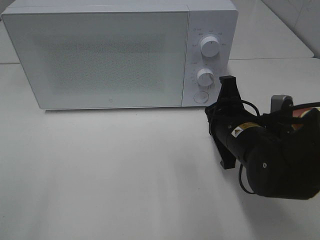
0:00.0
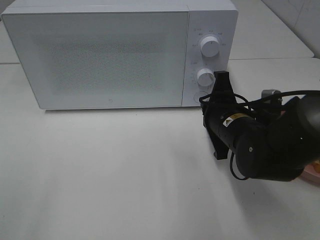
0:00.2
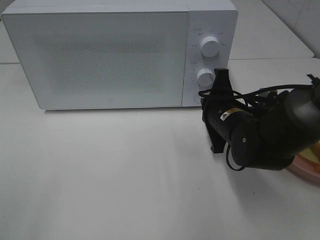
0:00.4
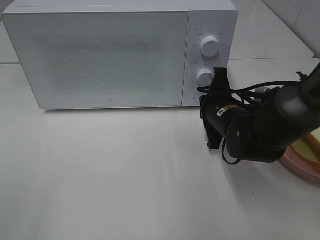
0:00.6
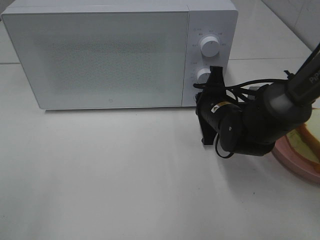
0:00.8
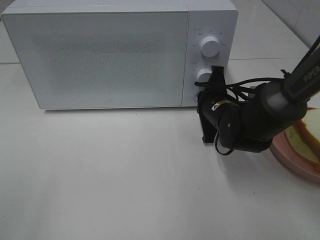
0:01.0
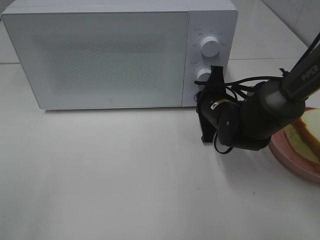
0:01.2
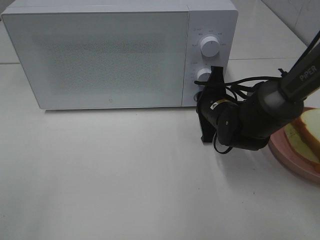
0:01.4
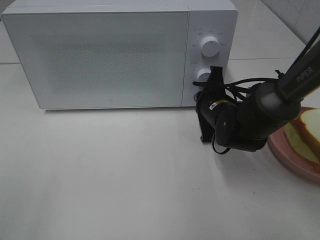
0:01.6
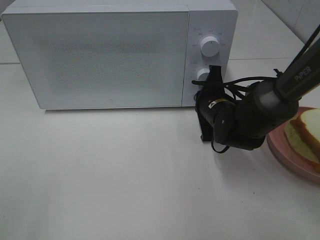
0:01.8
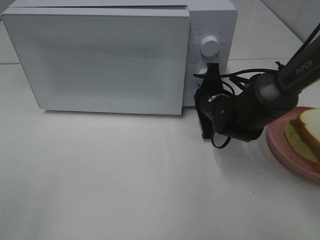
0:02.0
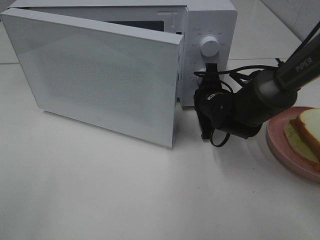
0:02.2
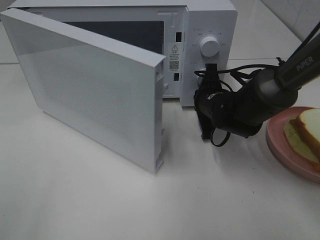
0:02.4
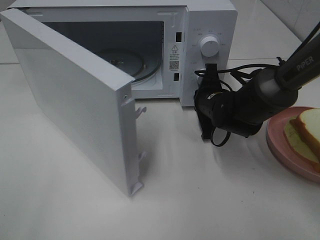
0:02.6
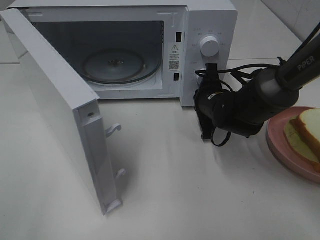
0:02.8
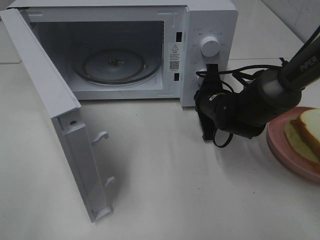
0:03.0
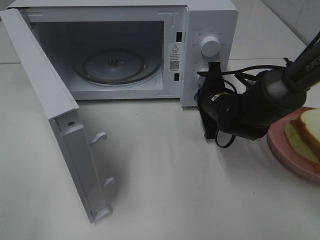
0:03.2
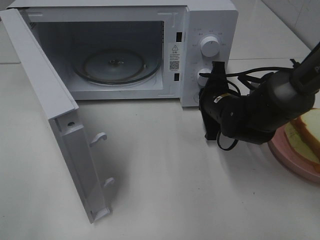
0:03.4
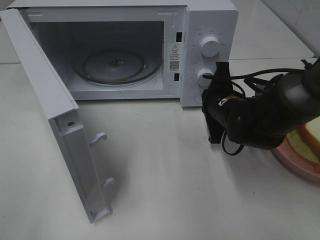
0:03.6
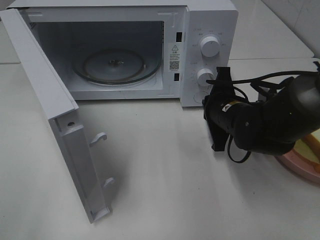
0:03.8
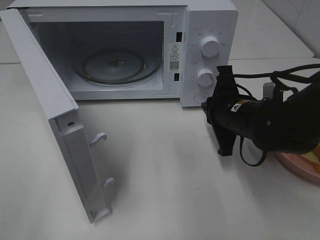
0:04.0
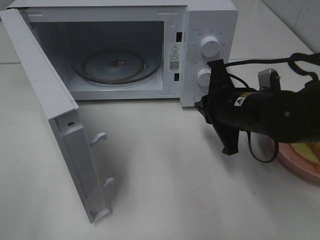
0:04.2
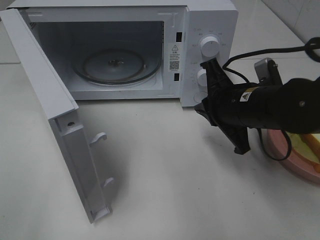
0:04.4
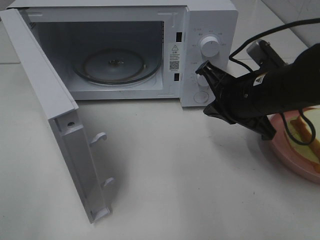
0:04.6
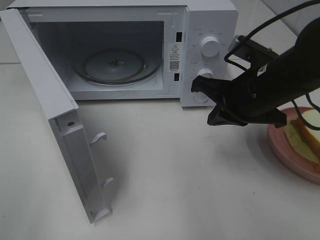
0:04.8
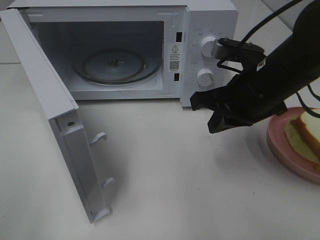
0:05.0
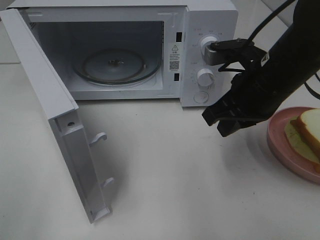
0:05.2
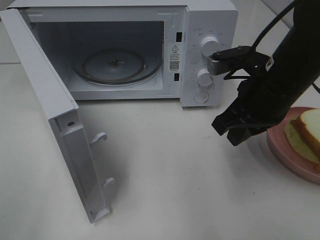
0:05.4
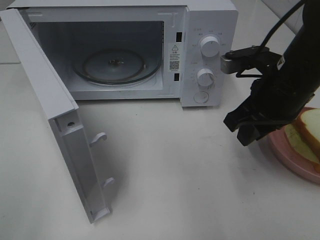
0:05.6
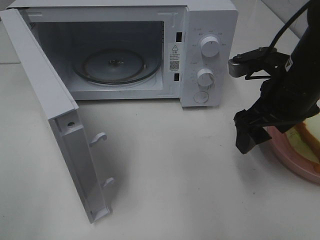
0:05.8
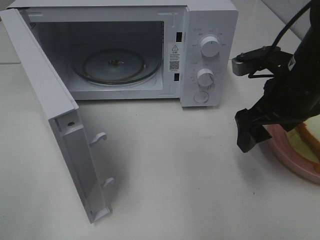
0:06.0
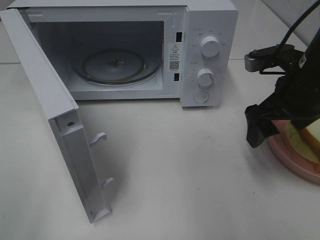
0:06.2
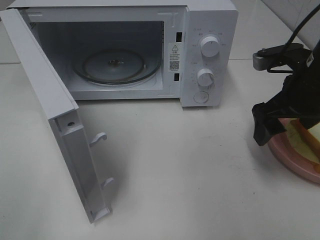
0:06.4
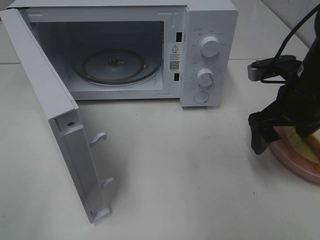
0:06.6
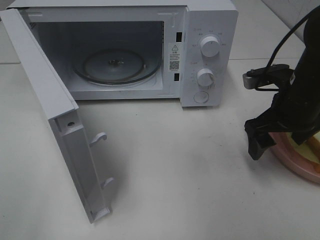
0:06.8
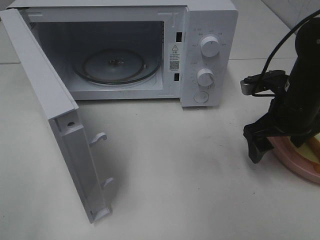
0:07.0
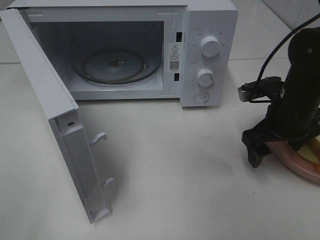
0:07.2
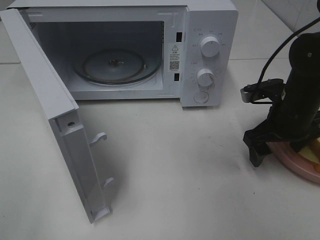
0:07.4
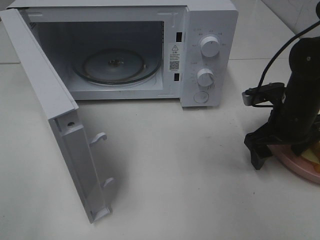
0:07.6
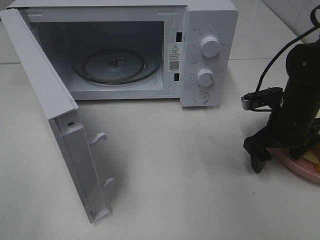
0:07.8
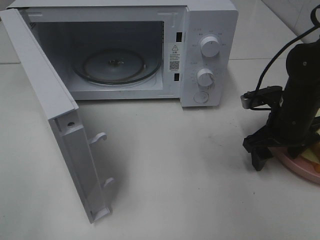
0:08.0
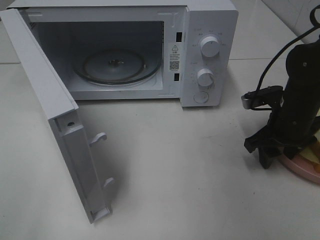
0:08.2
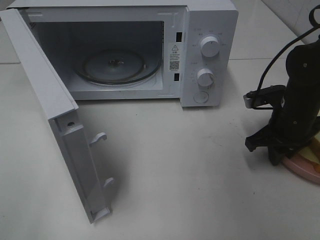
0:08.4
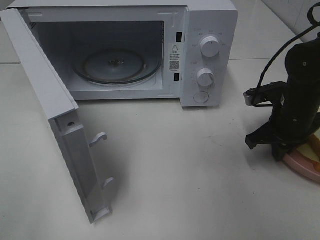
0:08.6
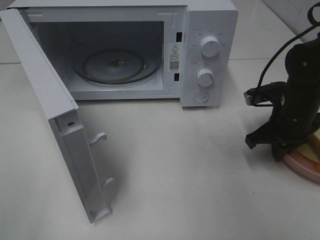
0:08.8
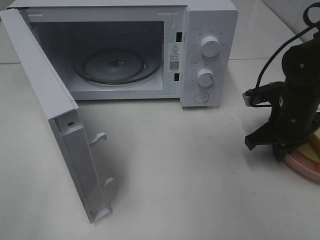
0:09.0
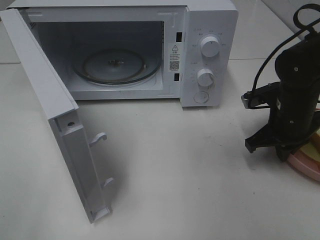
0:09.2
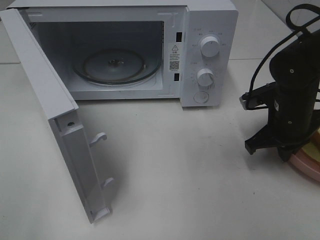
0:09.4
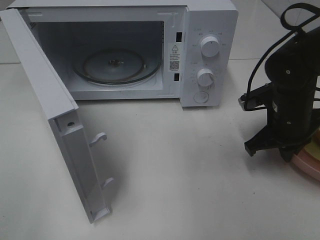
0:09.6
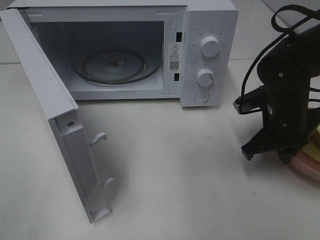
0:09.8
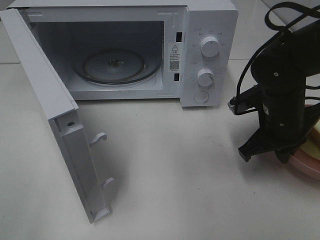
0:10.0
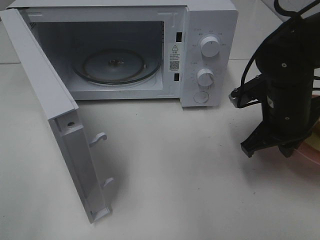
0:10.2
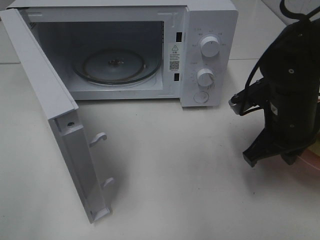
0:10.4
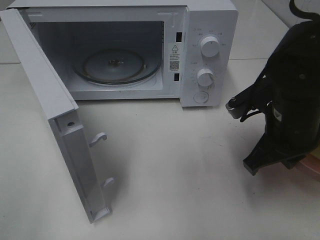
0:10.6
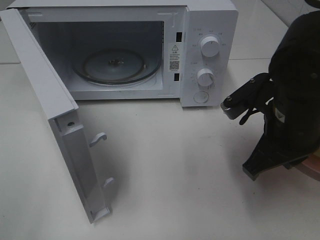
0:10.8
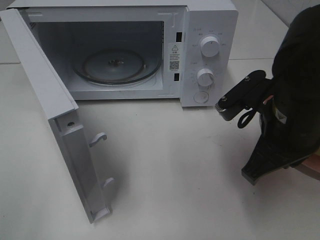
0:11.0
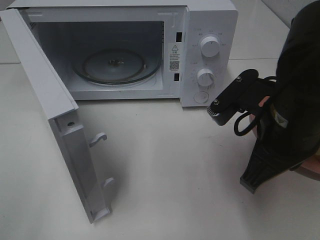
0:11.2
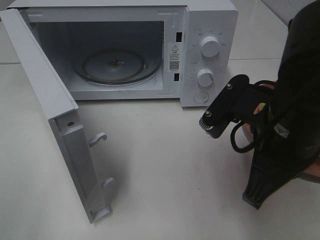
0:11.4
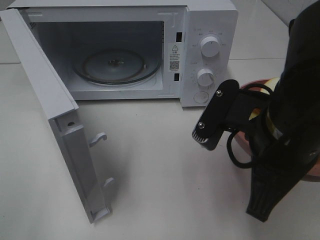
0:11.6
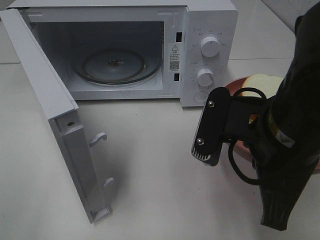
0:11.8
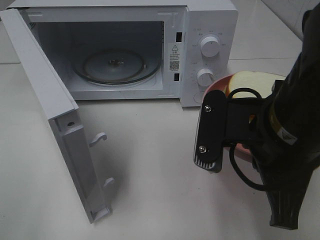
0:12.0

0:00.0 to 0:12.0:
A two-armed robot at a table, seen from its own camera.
Task of the whole recording: Heat Sandwich.
Step, 0:00.0 to 0:03.4: Right hand: press the switch.
Step, 0:03.6 to 0:08.8: Right hand: grab the plate with the sandwich.
0:00.0 to 0:01.6: The right gripper travels forward by some 10 cm.
0:03.0 to 0:04.4: The right gripper travels backward and upward by approximately 10 cm.
0:04.4 to 0:06.0: The right gripper is displaced to the right by roughly 5 cm, and opens its fingers.
0:06.0 to 0:07.6: The right gripper goes about 10 cm downward.
0:07.6 to 0:09.0: The right gripper closes up.
0:09.0 to 0:10.4: The right gripper moves backward and to the left, approximately 10 cm.
0:10.4 to 0:12.0: The right gripper travels backward, upward and to the left by some 15 cm.

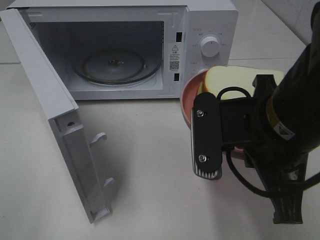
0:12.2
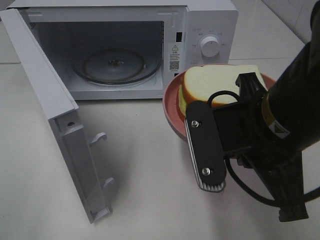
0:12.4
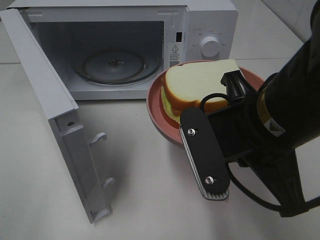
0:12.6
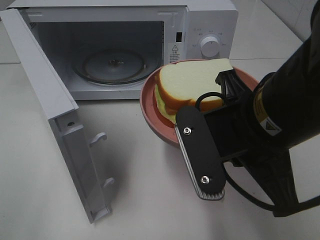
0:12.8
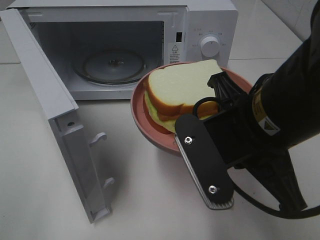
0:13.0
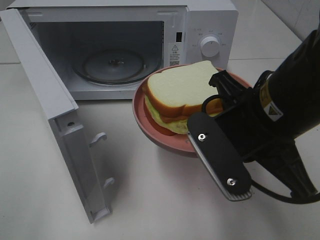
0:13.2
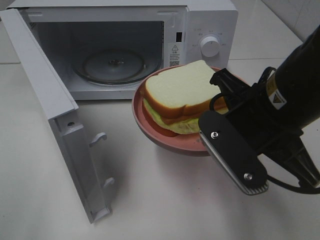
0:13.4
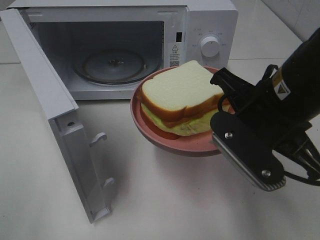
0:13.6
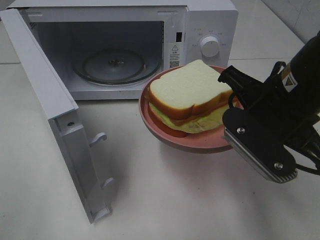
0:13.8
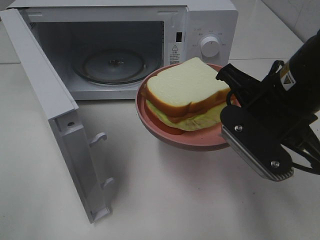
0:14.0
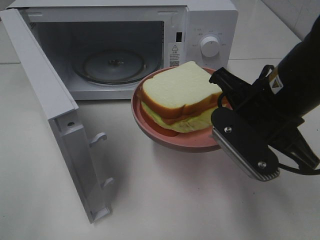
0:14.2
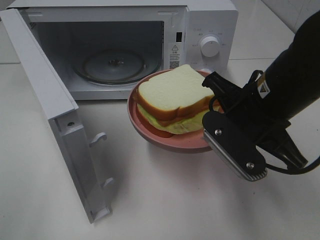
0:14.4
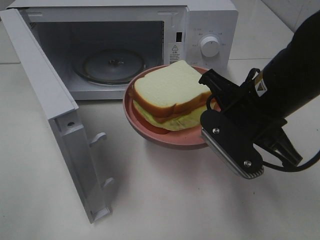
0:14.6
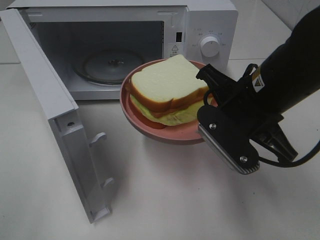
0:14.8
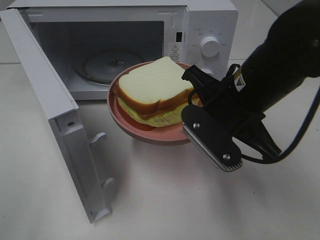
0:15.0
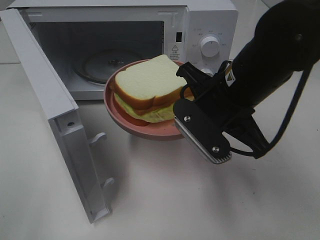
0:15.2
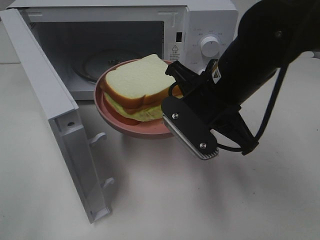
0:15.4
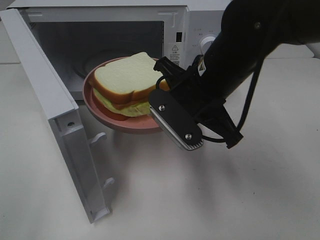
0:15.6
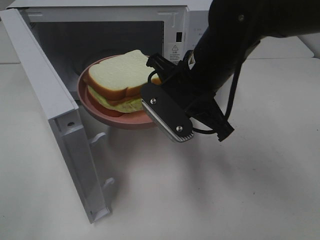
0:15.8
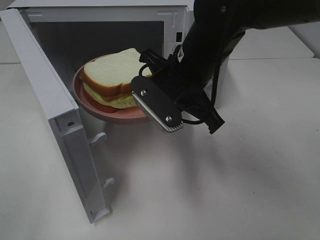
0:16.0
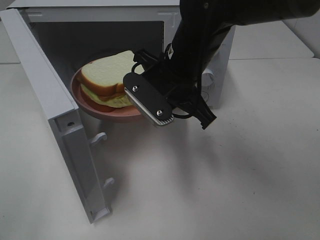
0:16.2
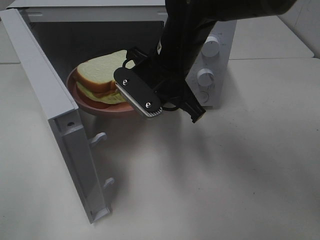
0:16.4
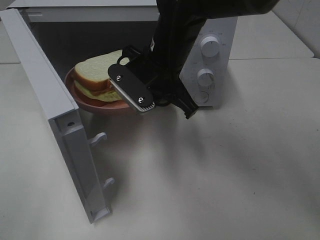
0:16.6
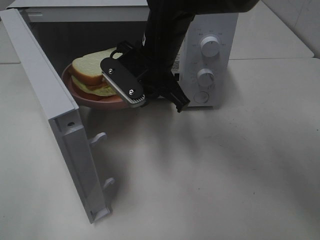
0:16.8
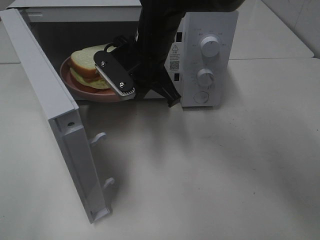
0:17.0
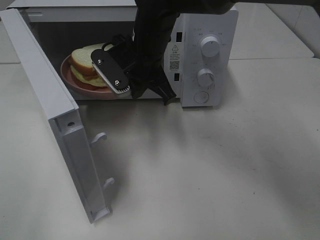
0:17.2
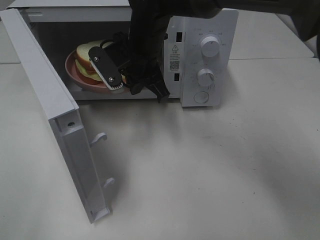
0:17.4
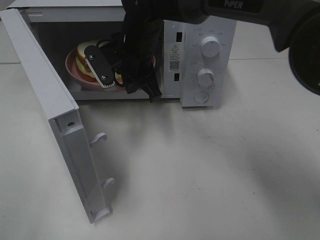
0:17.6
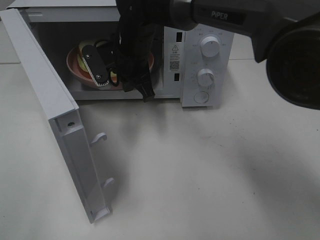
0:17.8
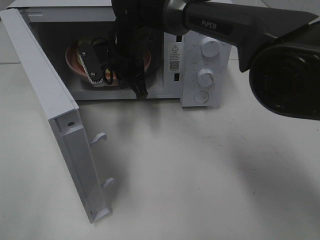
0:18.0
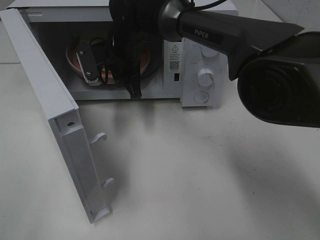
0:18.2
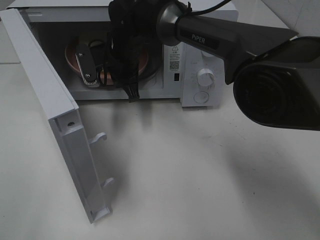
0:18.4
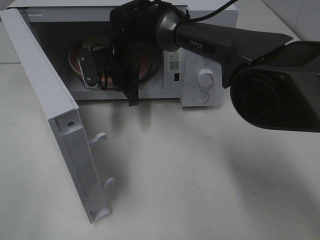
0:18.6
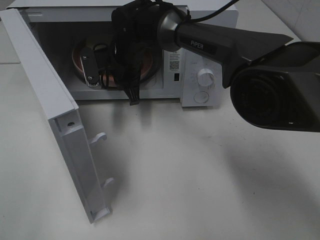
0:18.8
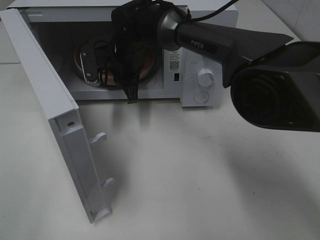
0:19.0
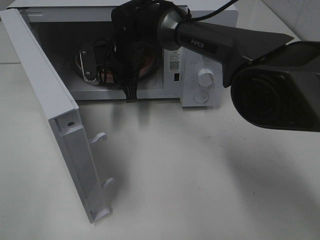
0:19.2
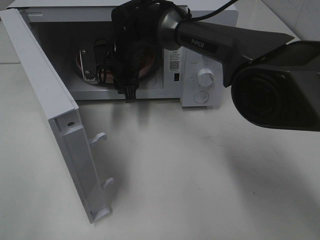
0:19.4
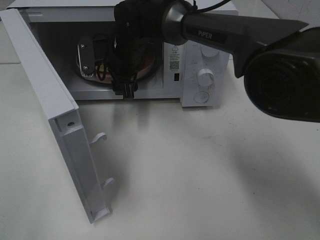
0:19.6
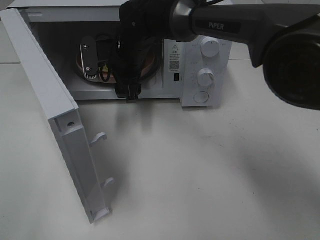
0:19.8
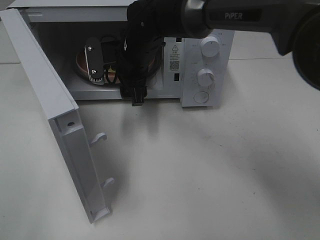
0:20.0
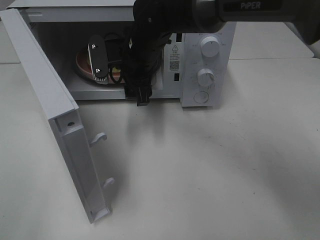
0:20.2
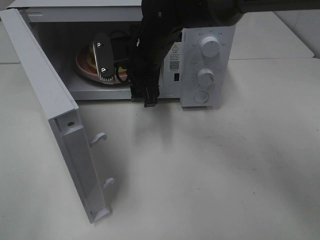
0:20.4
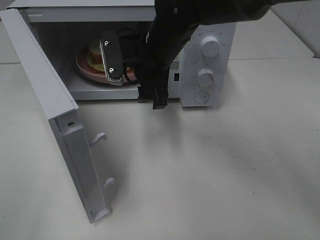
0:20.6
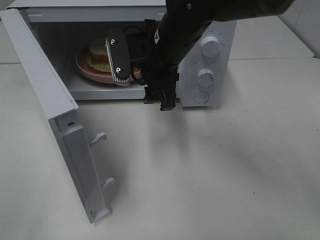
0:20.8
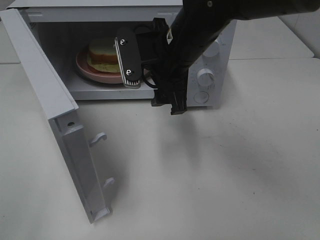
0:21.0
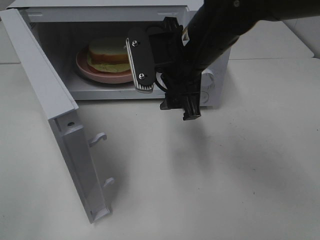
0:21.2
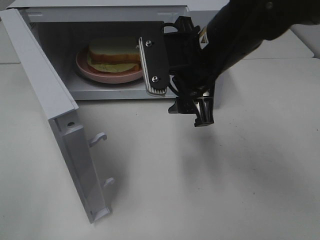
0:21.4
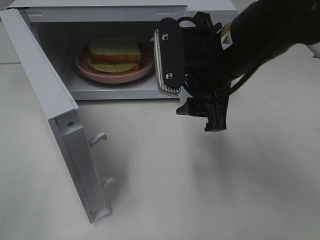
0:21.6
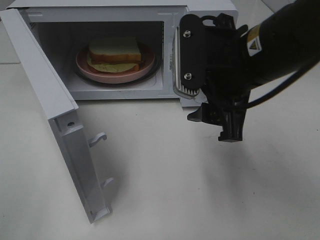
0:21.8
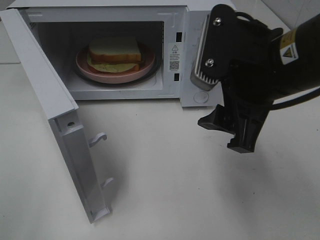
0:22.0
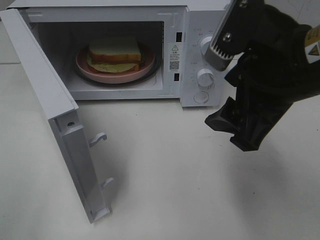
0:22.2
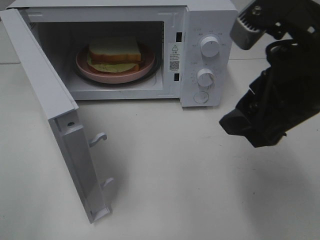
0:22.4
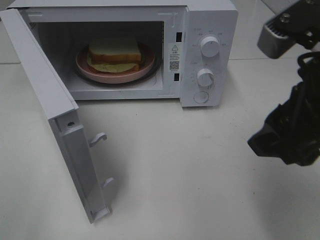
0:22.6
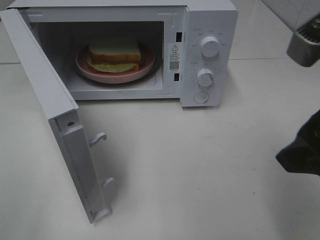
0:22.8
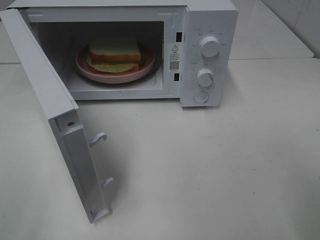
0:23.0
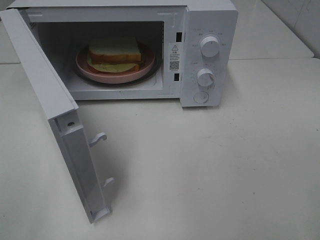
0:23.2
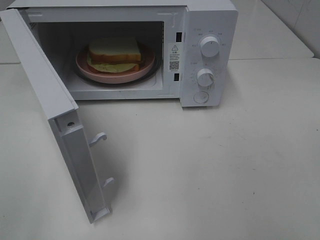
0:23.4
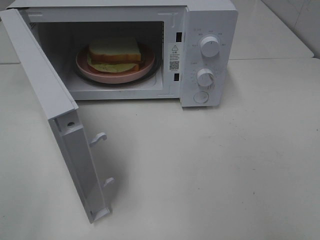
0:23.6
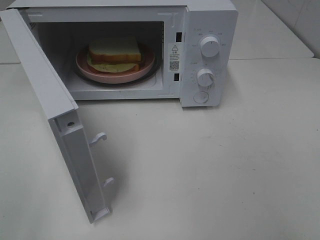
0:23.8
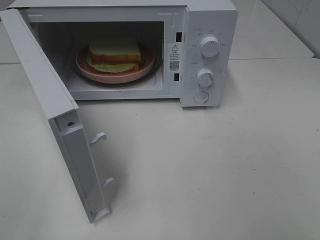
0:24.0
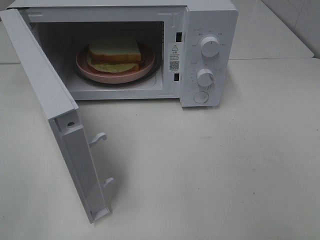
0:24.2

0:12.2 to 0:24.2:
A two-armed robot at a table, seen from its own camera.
Task of the whole recording: Heat Sandwich.
Step, 0:12.2 to 0:20.2: Right hand: place the plate in the microwave.
0:12.2 to 0:13.8: The right gripper travels forward by roughly 5 cm.
0:13.8 to 0:15.2: The right gripper moves about 5 cm.
0:15.2 to 0:16.6: The right gripper moves forward and to the left, approximately 10 cm.
0:16.6 to 0:18.2: The right gripper heads forward and to the left, covering approximately 10 cm.
0:18.2 to 0:19.8: The right gripper opens.
0:19.8 to 0:21.2: The right gripper moves backward, to the right and upward, about 15 cm.
0:21.2 to 0:22.6: The right gripper travels backward and to the right by about 20 cm.
0:22.6 to 0:24.2: The right gripper travels backward and to the right by some 20 cm.
